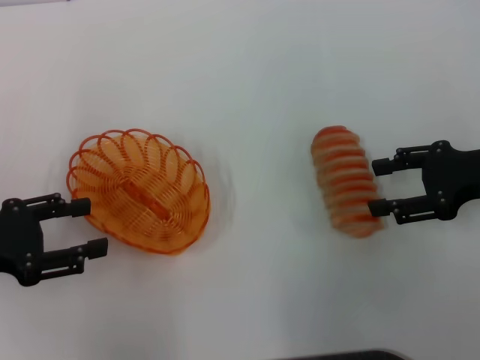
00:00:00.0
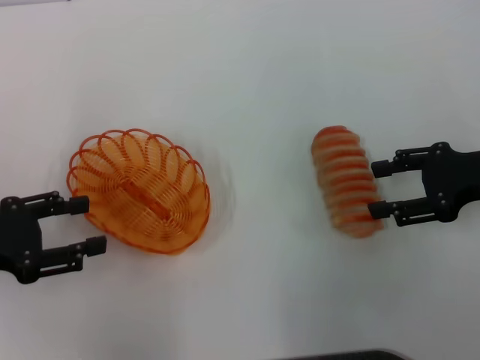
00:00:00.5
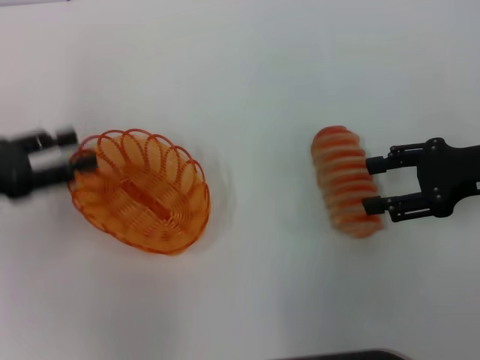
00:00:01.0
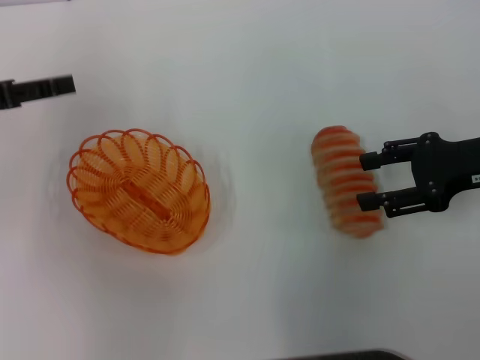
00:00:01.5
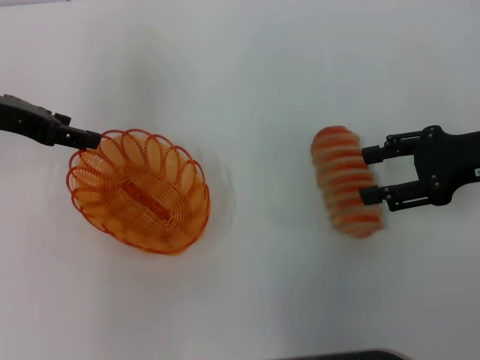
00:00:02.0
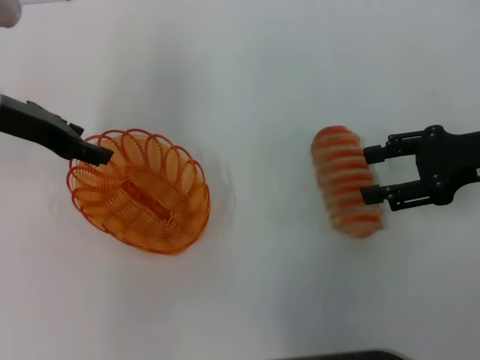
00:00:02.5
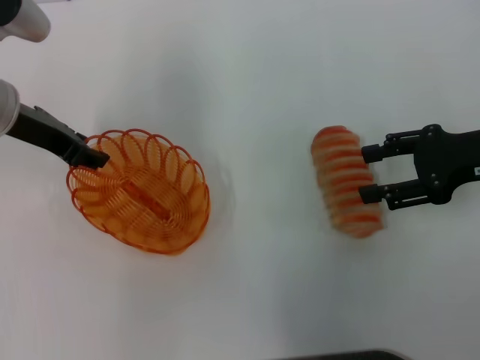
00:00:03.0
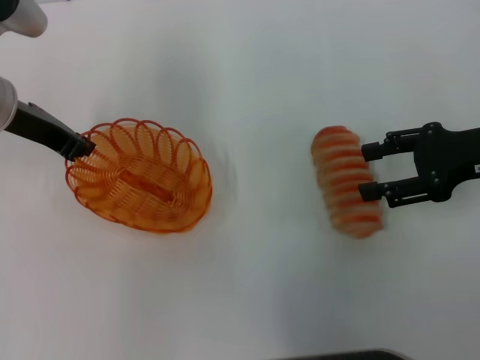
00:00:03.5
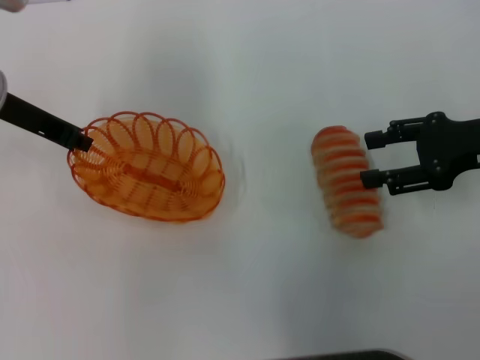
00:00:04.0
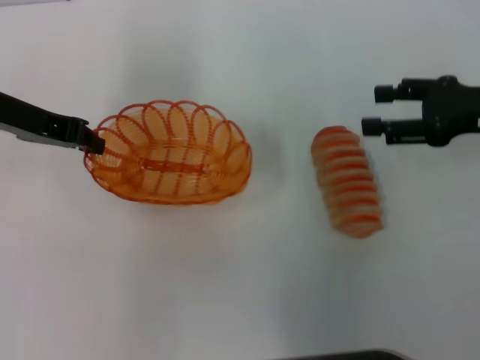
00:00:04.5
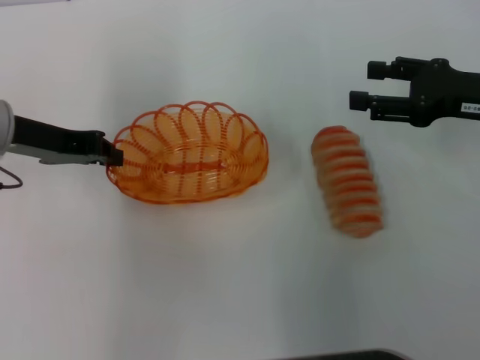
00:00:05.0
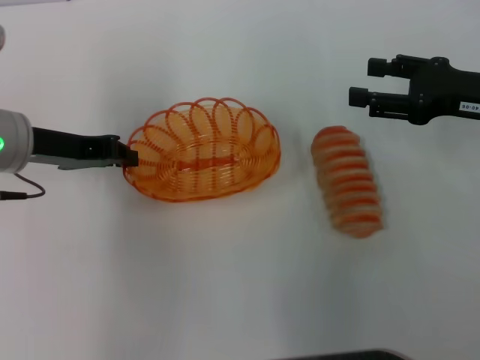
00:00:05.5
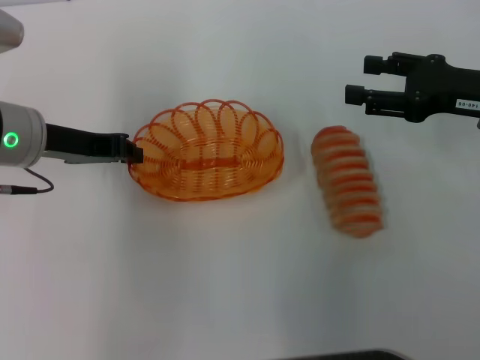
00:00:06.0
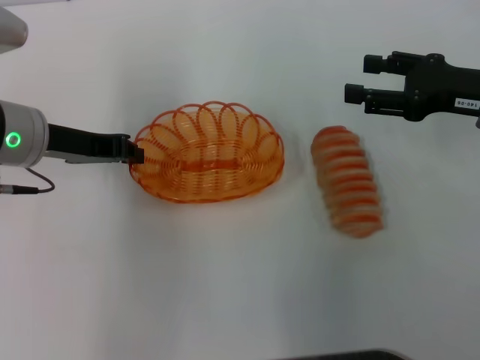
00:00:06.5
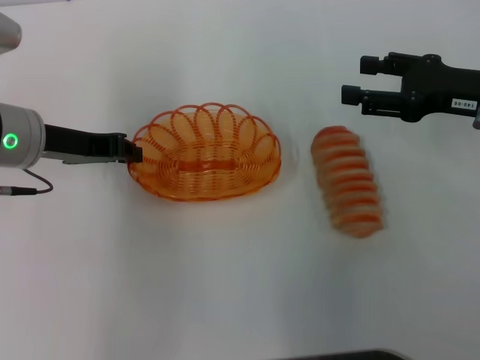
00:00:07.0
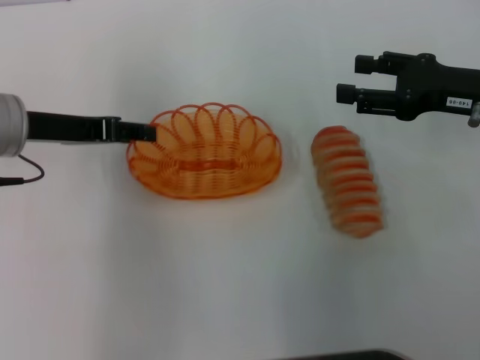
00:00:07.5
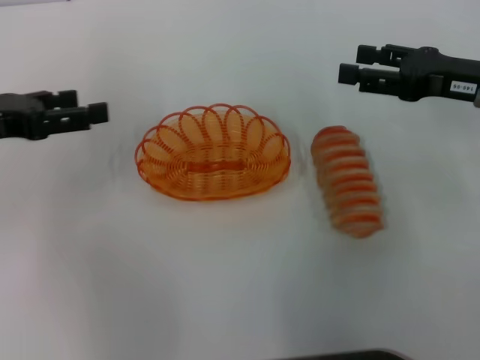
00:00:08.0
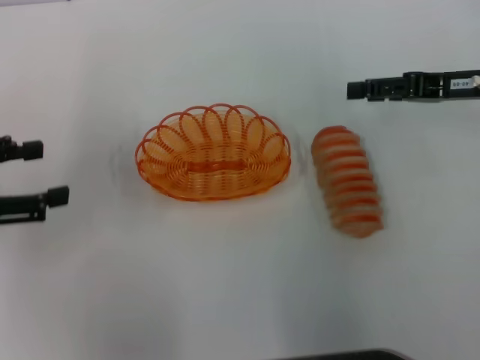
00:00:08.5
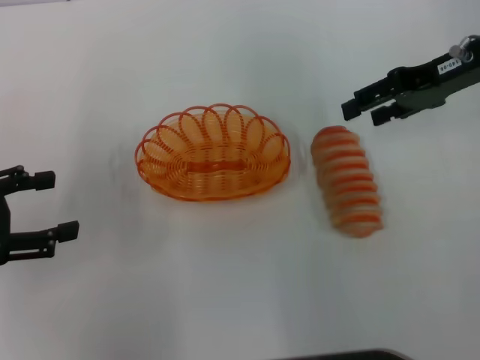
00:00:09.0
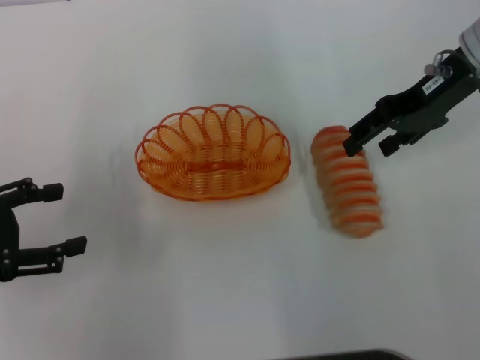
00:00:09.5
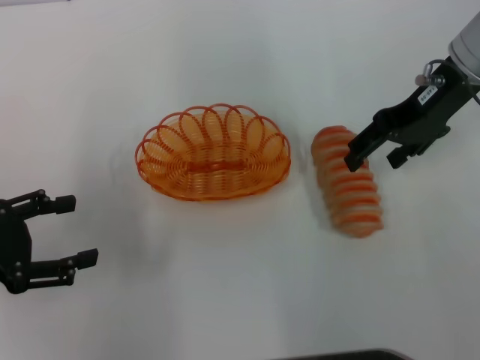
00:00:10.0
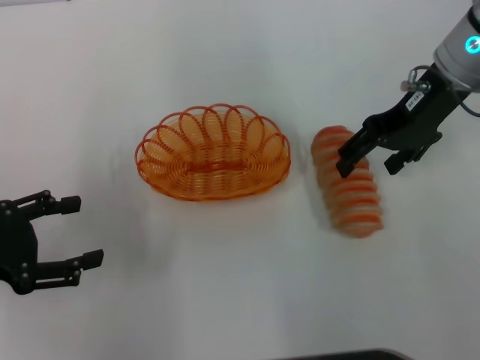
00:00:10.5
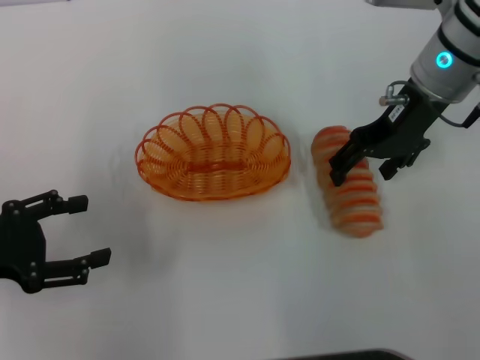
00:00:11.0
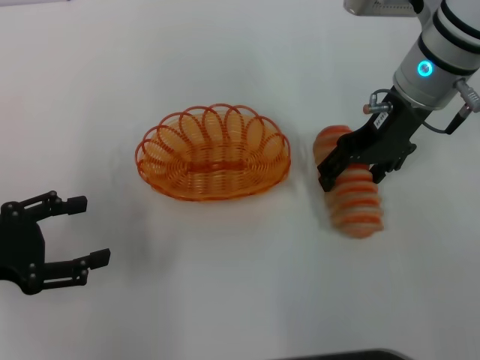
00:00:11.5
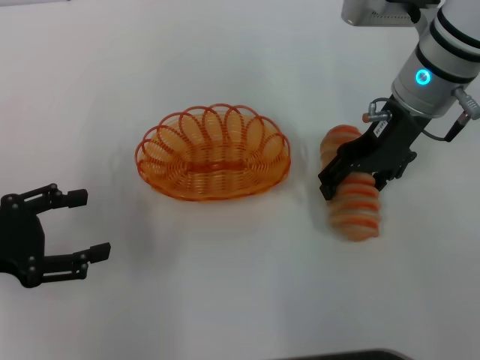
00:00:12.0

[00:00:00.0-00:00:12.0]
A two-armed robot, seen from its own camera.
Step, 00:00:00.0 to 00:00:04.0: Pick up the basket with the left gripper.
Step, 00:00:05.0 to 00:00:07.5: Place the basket in the center of view with the left gripper.
00:00:00.0 to 00:00:02.0: The left gripper moves forward and upward, some 15 cm.
00:00:02.0 to 00:00:04.0: The left gripper closes its fingers.
00:00:04.0 to 00:00:06.0: The left gripper changes place by roughly 5 cm.
00:00:06.0 to 00:00:08.0: The left gripper is displaced to the left by approximately 10 cm, and opens up.
00:00:08.0 to 00:00:10.0: The left gripper goes roughly 10 cm backward; the right gripper moves to the left, forward and upward, approximately 10 cm.
00:00:10.0 to 00:00:12.0: The right gripper moves some 5 cm.

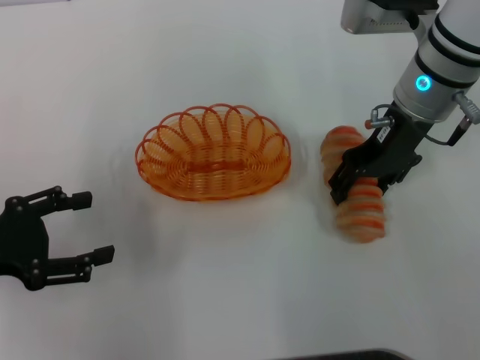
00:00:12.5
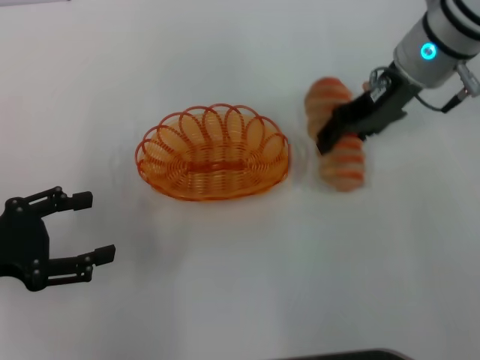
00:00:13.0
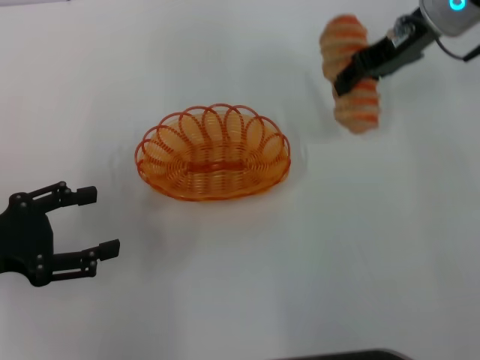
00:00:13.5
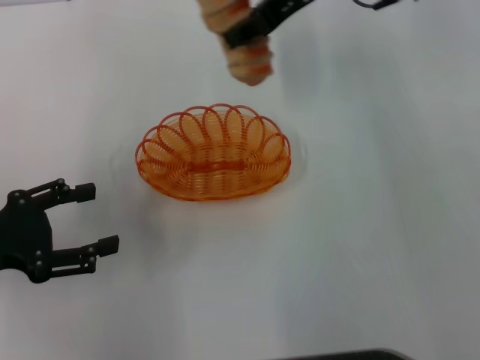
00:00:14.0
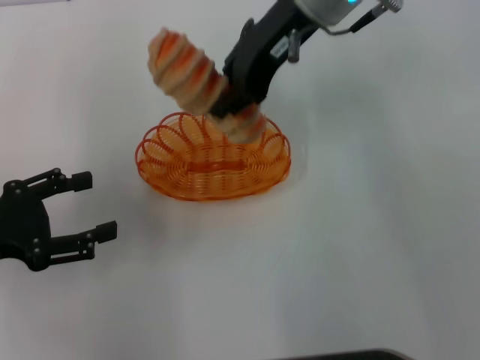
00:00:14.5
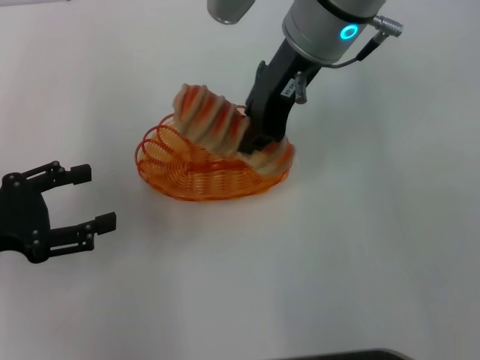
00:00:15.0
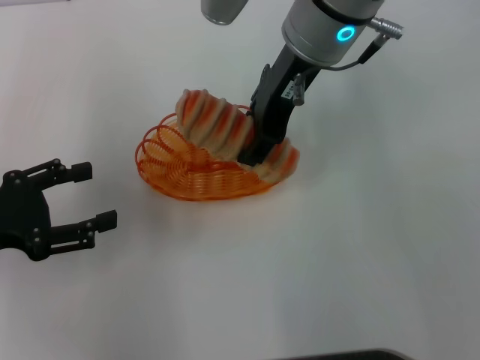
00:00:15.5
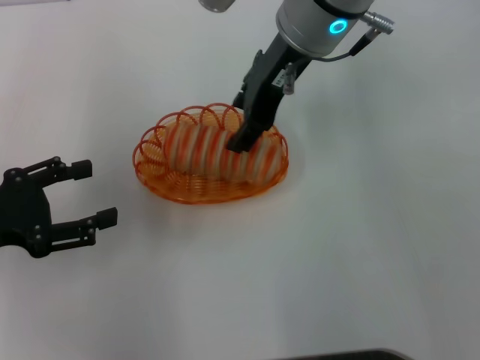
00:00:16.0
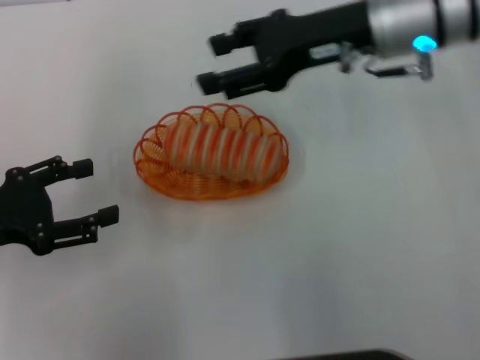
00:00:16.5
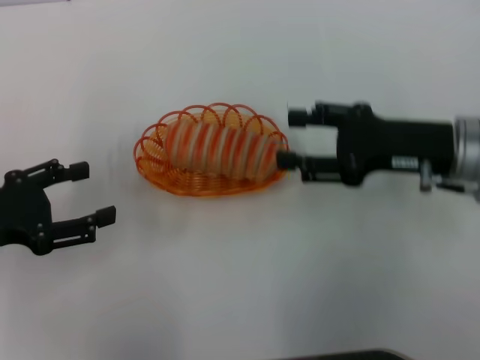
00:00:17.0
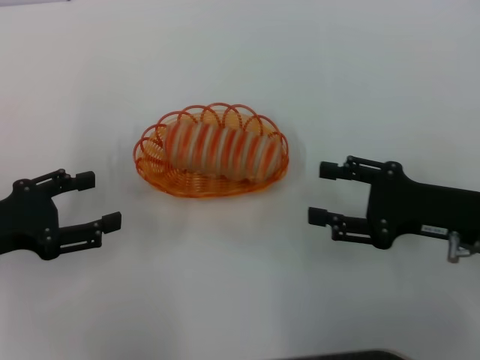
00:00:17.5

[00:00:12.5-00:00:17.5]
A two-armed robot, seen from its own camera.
Step, 00:00:13.5 to 00:00:16.5: Place the long bread into the basket with the right gripper.
00:00:12.5 to 00:00:15.0: The right gripper shifts some 10 cm to the left and upward, and closes.
00:00:15.0 to 00:00:17.5: The right gripper travels to the right, backward and downward by about 30 cm, and opens up.

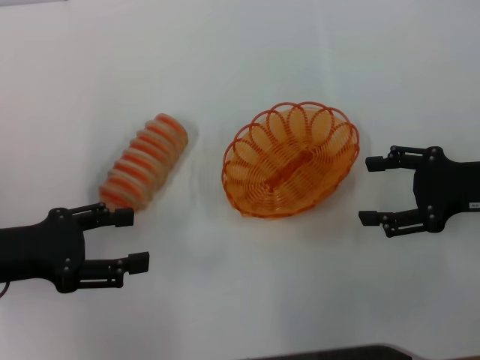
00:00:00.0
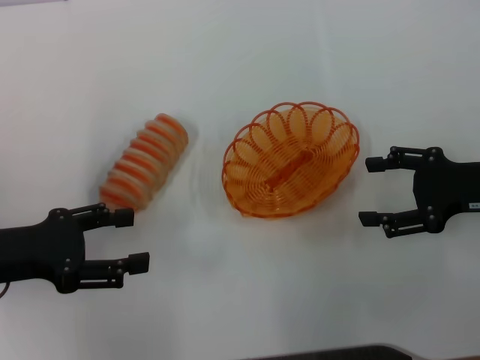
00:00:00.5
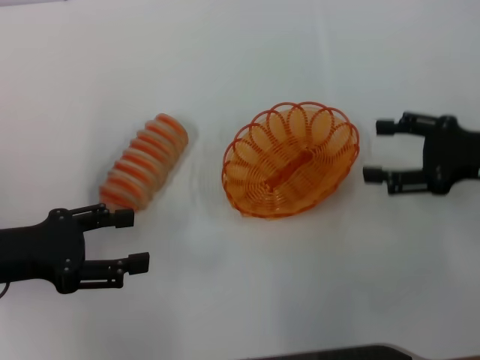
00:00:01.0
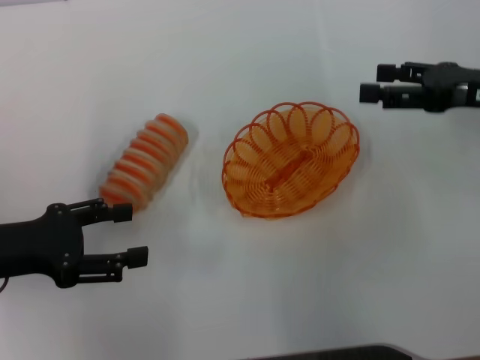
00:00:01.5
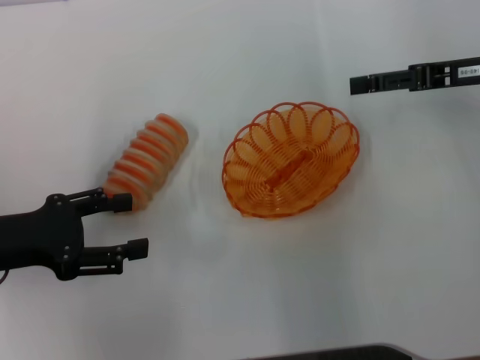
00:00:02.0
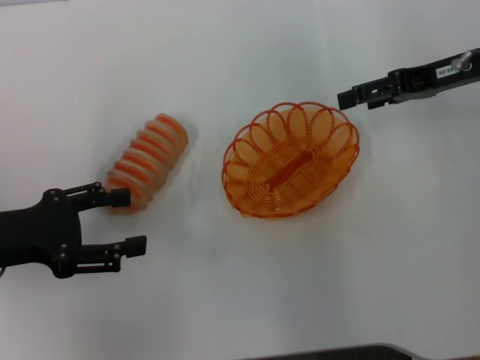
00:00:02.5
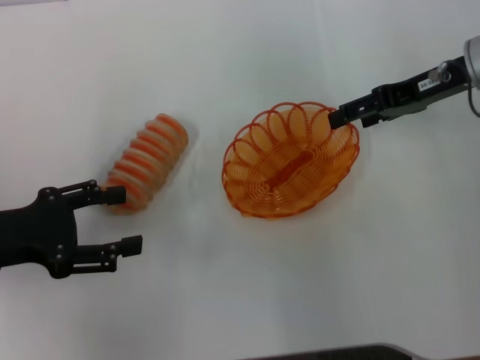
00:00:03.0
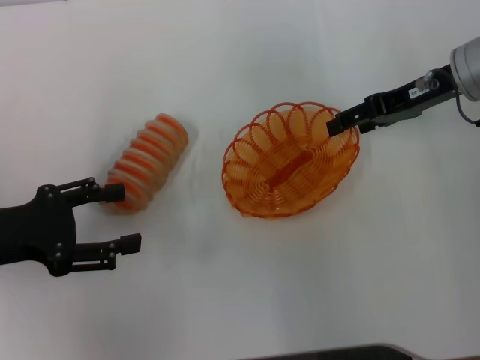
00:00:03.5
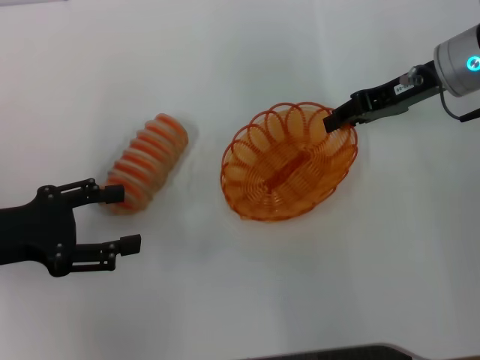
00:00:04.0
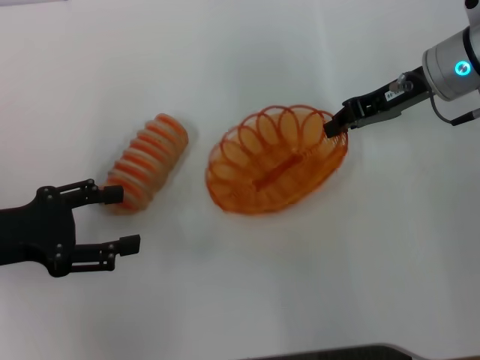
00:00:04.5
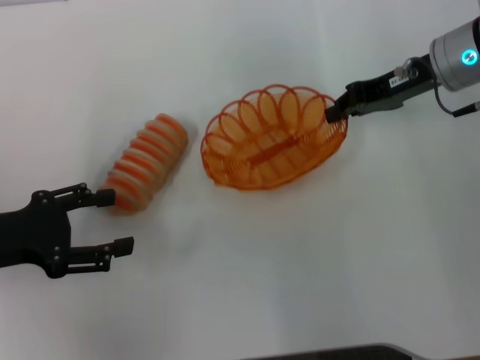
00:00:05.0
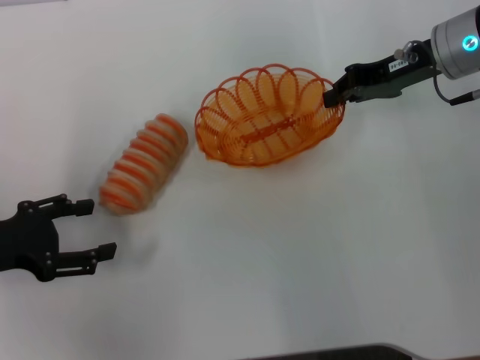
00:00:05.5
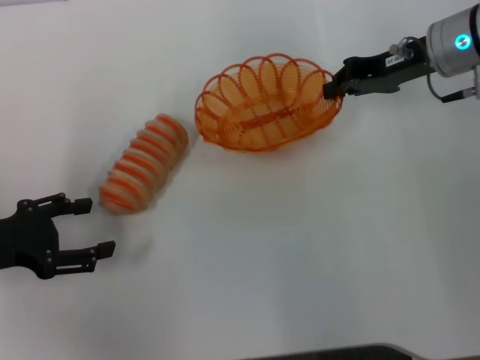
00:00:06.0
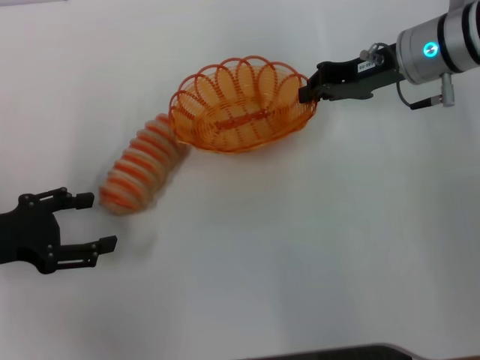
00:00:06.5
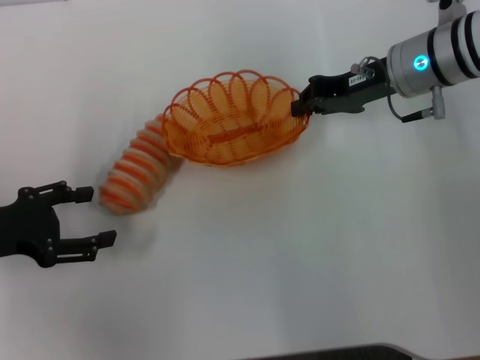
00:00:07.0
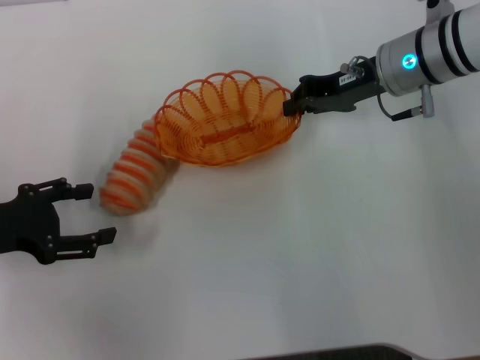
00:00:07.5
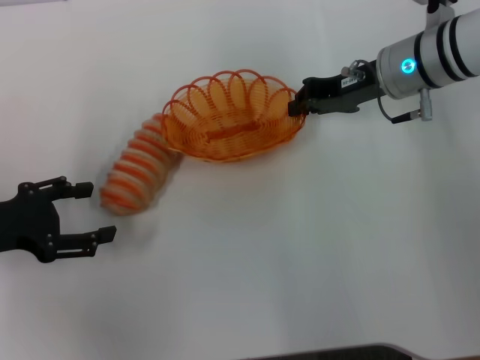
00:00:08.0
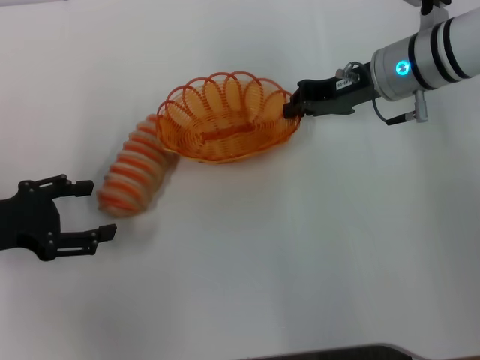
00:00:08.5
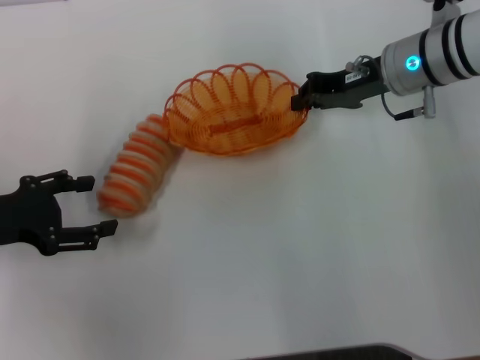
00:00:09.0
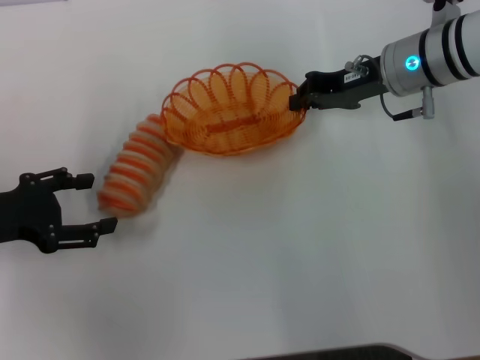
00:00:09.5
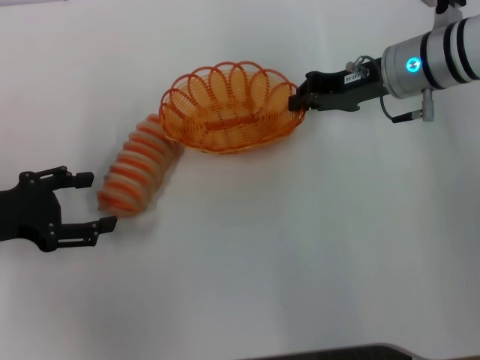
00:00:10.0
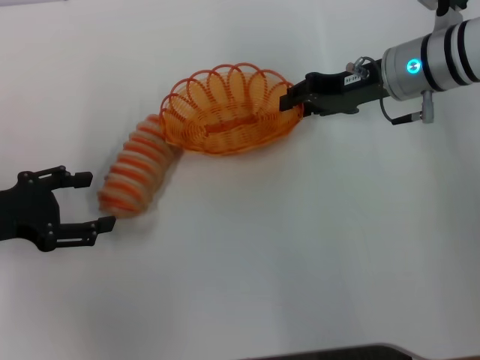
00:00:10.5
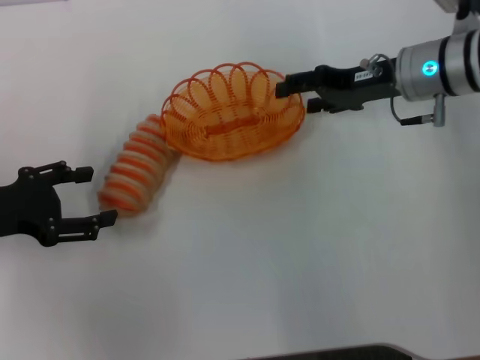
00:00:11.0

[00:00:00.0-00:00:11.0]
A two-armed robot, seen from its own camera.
Step, 00:00:00.0 to 00:00:05.0: Pick up the basket with the right gripper.
00:00:00.0 to 00:00:02.0: The right gripper travels forward and upward by about 10 cm.
00:00:02.0 to 00:00:03.5: The right gripper shifts by about 5 cm.
00:00:03.5 to 00:00:05.5: The right gripper closes.
00:00:05.5 to 00:00:07.5: The right gripper moves some 5 cm.
00:00:07.5 to 00:00:09.0: The two grippers keep their place.
00:00:09.0 to 00:00:11.0: The right gripper opens its fingers.
